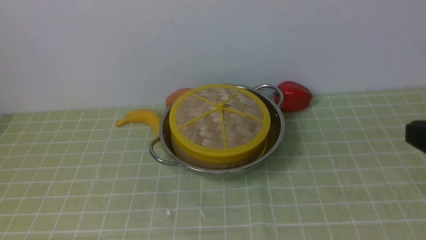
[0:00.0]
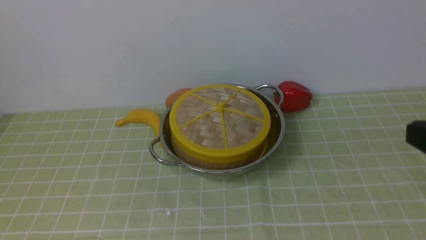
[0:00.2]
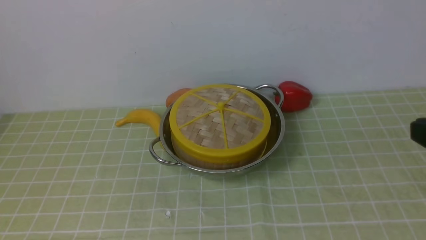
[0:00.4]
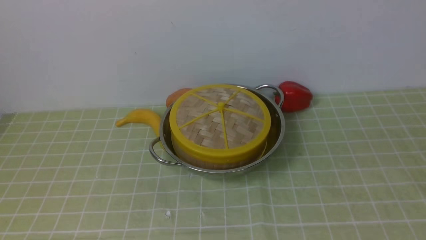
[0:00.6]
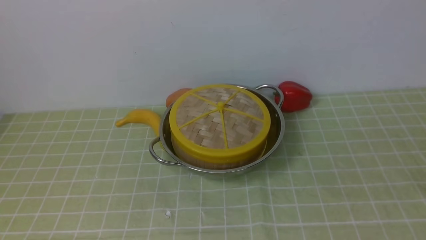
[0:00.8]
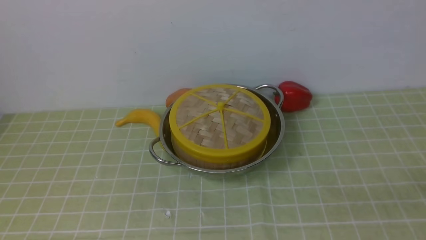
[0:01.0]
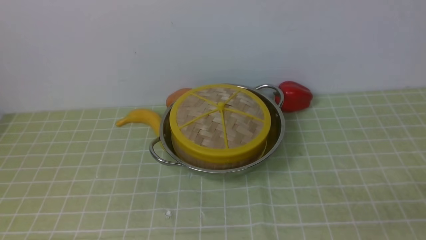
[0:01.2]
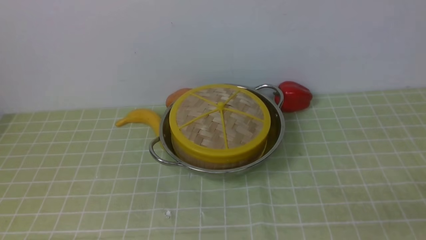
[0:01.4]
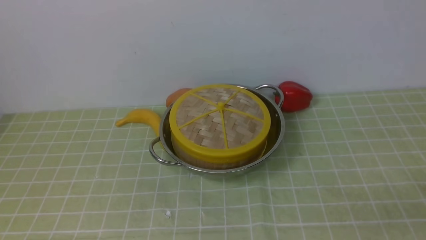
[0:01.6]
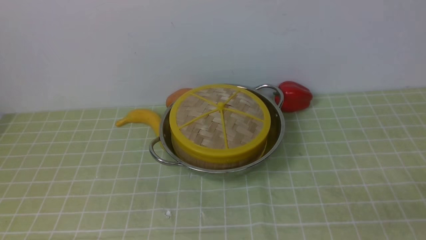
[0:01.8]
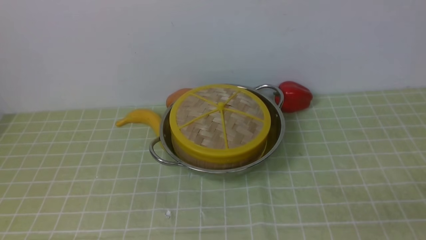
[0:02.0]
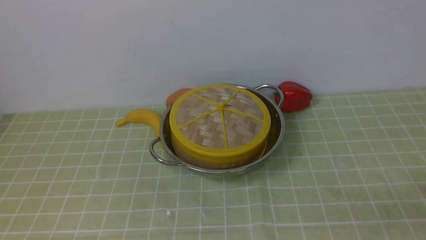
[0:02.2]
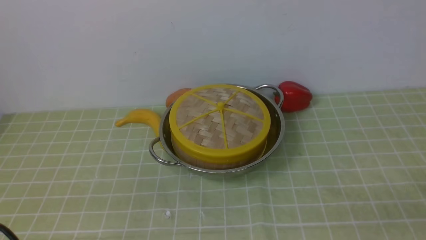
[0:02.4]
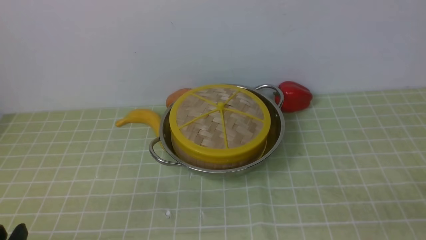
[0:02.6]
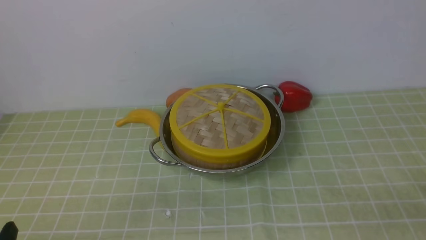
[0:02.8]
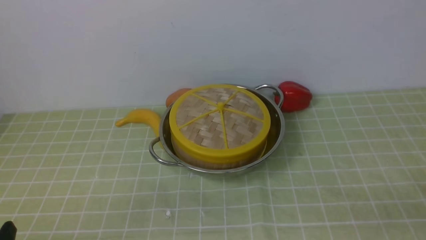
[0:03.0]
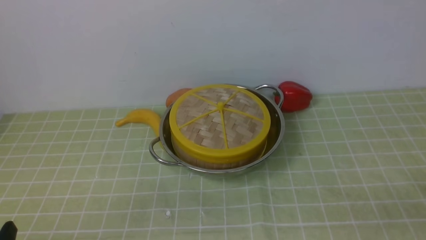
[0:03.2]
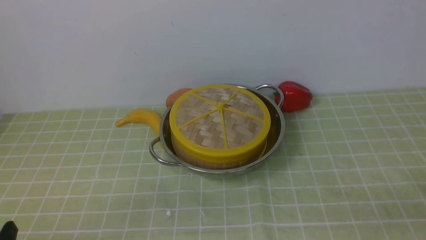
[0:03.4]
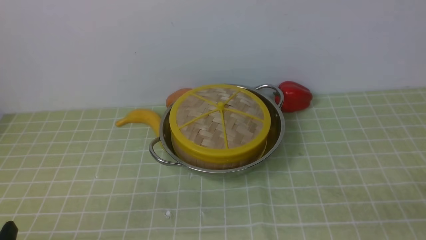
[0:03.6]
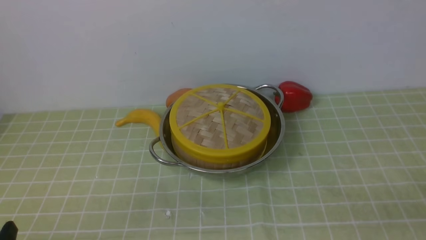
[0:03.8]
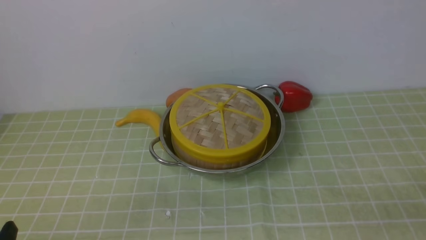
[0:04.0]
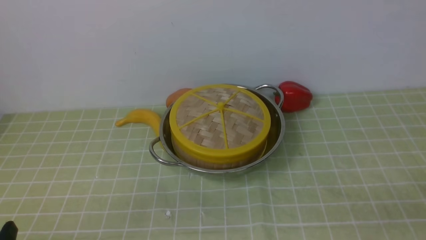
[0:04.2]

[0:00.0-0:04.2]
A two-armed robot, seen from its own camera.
Task of the whole recording: place the steamer in the pot on the green tablecloth, and put the lid on the steamer.
0:02.8 to 0:04.2: The two grippers keep their place.
